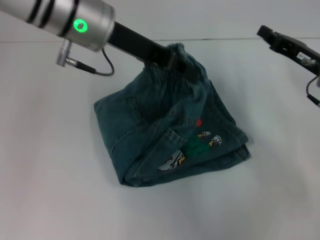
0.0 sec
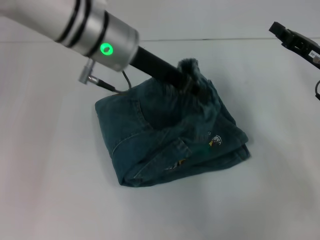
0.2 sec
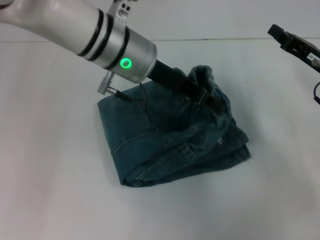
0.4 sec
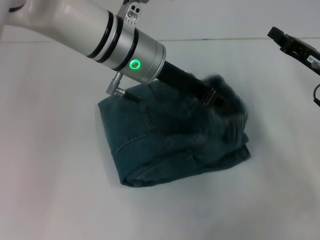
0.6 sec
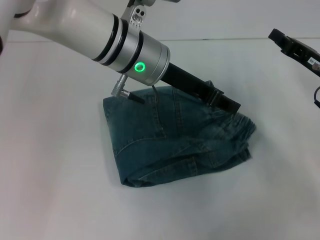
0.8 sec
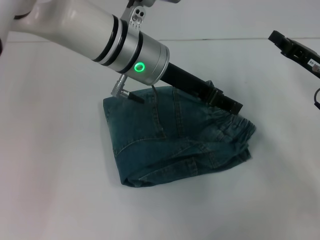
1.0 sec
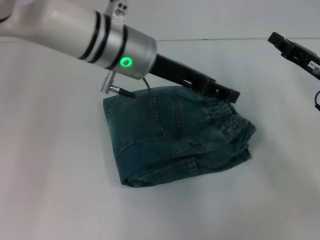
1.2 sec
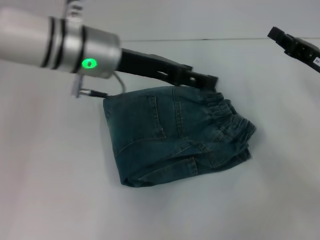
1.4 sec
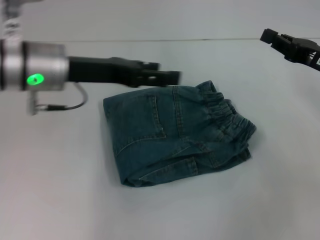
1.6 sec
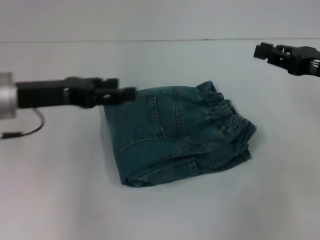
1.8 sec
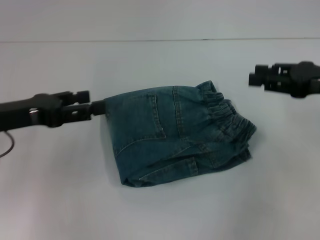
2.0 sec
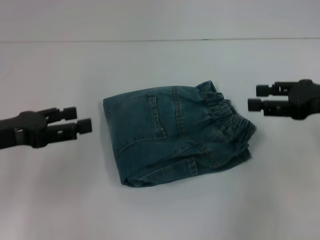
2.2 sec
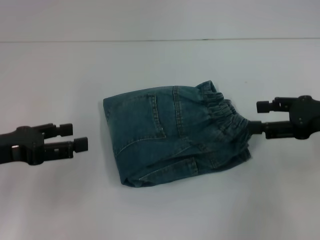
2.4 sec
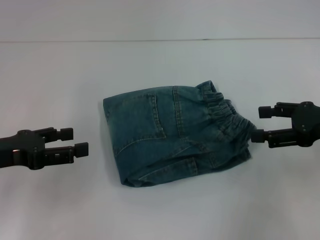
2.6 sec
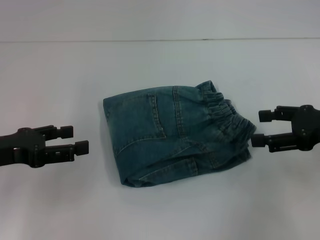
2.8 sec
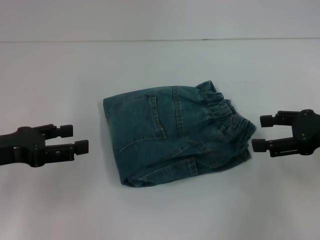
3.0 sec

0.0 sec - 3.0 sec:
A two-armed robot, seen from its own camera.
0.0 sec - 1.6 sec: The left gripper goes some 10 cm to the left and downward, and opens.
1.6 sec - 3.0 sec: The right gripper travels backward by some 5 cm, and opens up; the left gripper goes some 15 cm to the left, backward and downward.

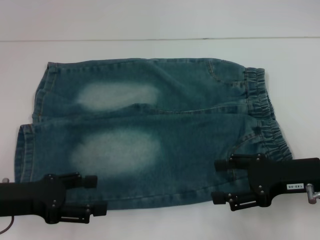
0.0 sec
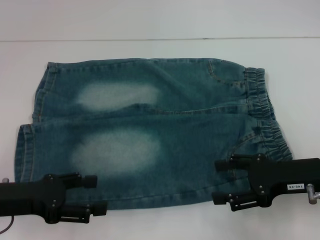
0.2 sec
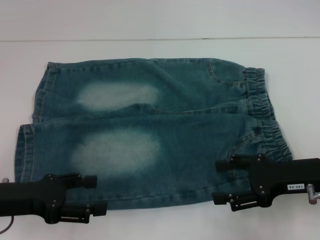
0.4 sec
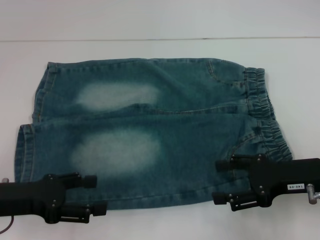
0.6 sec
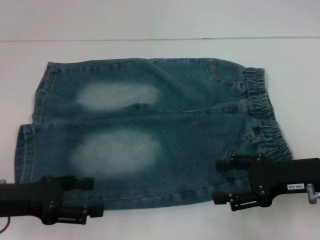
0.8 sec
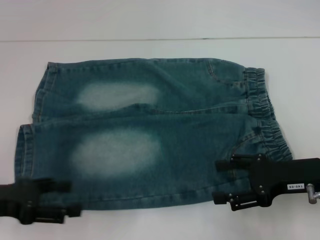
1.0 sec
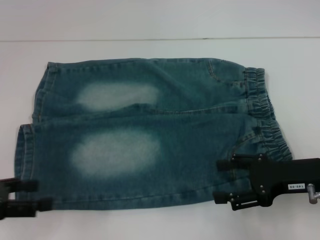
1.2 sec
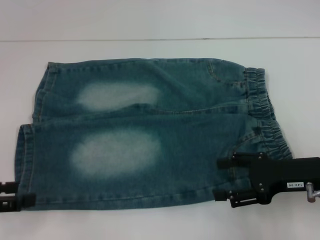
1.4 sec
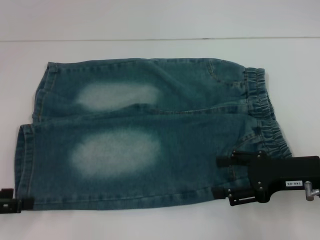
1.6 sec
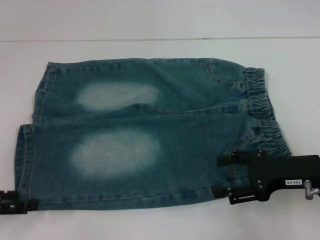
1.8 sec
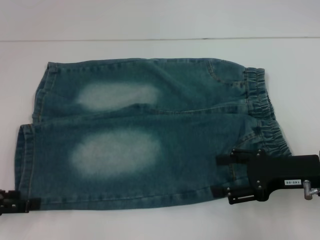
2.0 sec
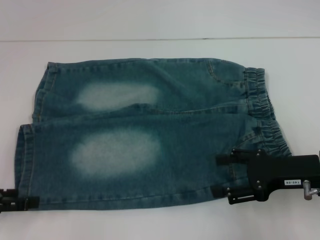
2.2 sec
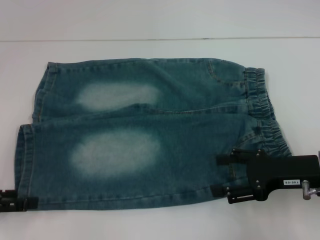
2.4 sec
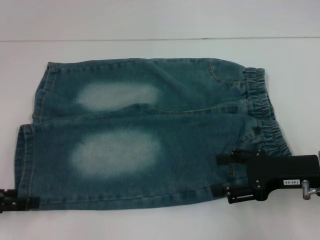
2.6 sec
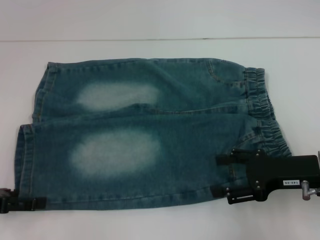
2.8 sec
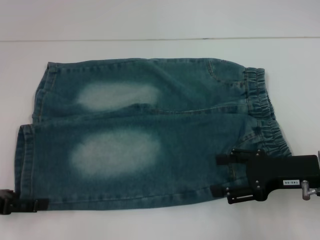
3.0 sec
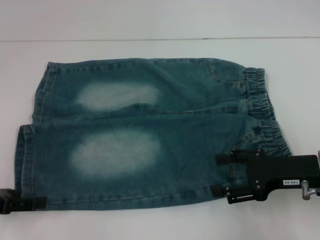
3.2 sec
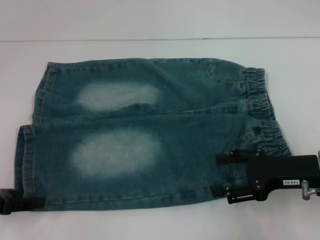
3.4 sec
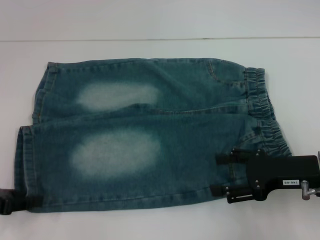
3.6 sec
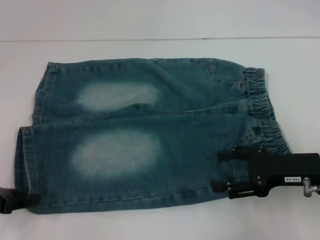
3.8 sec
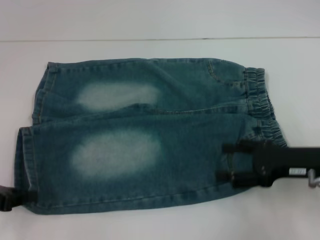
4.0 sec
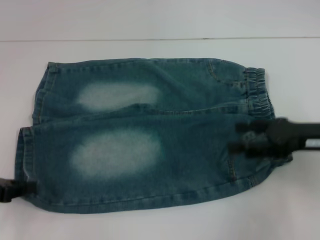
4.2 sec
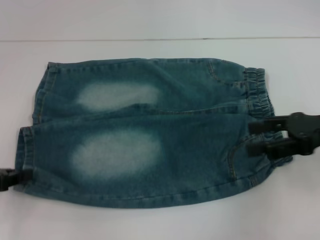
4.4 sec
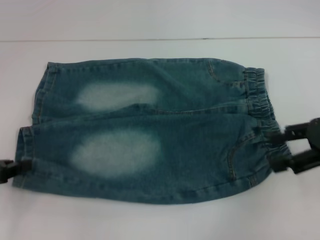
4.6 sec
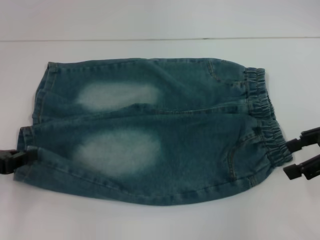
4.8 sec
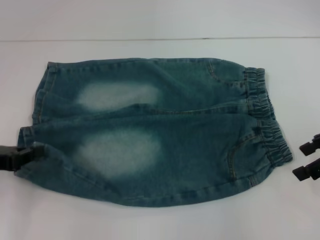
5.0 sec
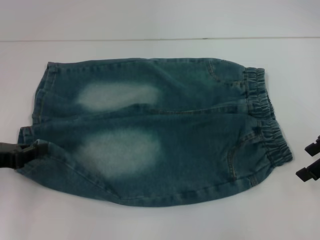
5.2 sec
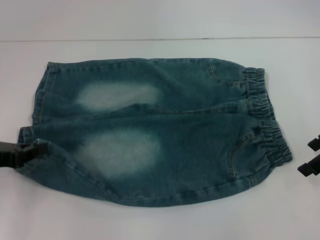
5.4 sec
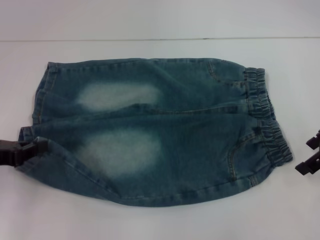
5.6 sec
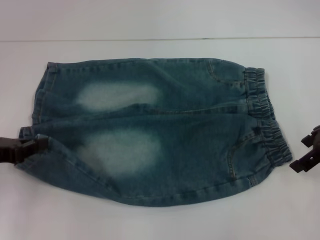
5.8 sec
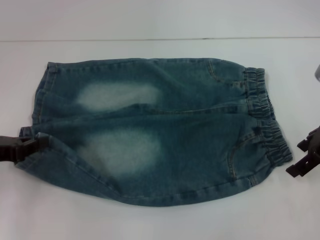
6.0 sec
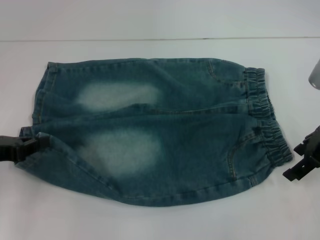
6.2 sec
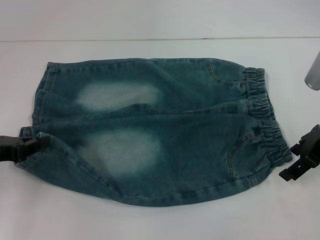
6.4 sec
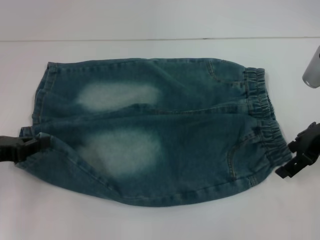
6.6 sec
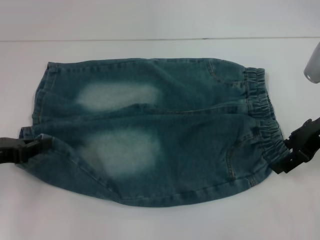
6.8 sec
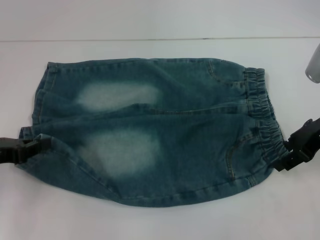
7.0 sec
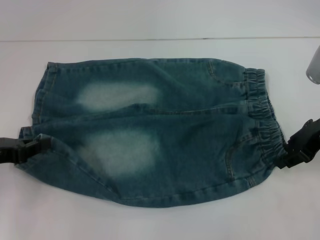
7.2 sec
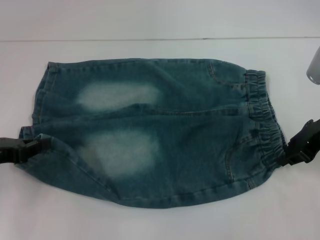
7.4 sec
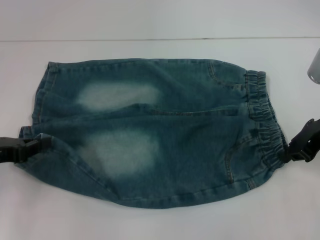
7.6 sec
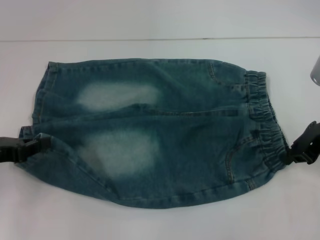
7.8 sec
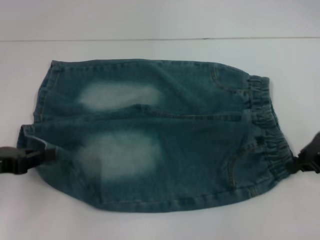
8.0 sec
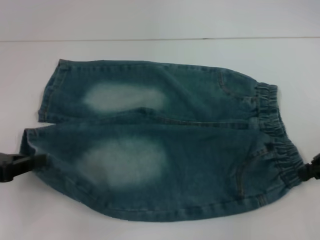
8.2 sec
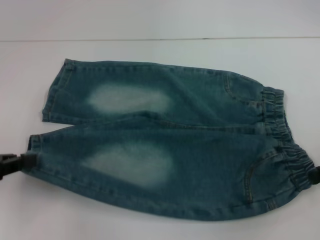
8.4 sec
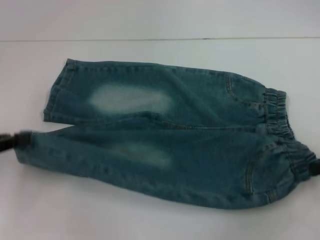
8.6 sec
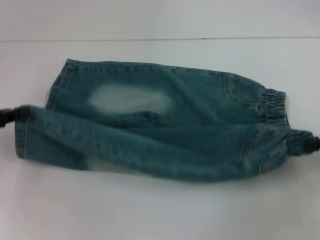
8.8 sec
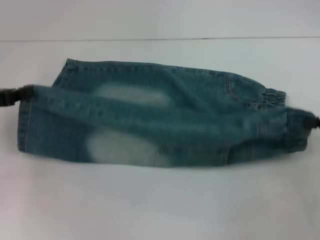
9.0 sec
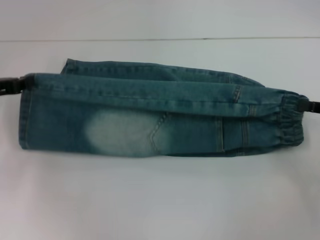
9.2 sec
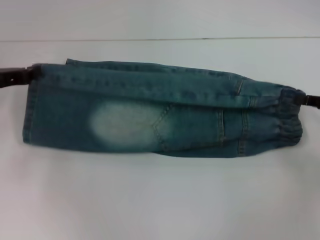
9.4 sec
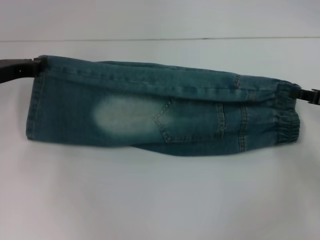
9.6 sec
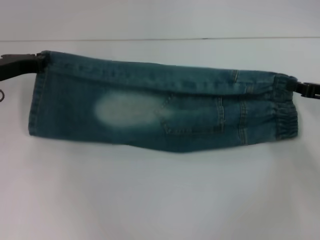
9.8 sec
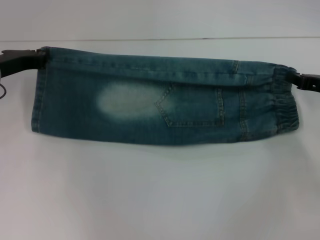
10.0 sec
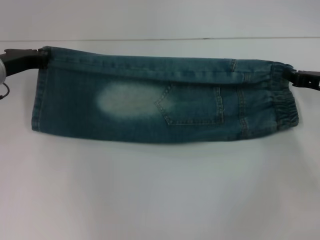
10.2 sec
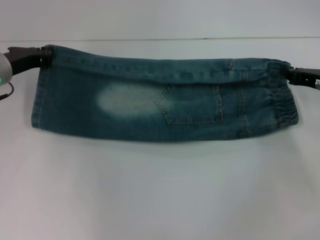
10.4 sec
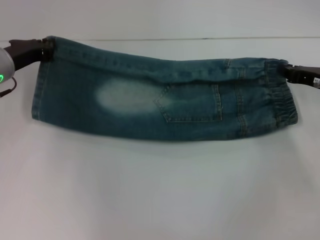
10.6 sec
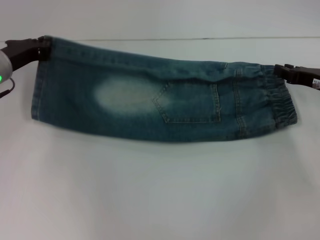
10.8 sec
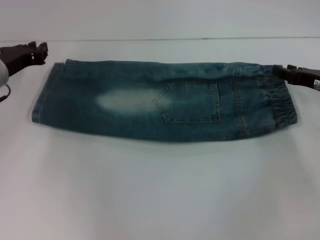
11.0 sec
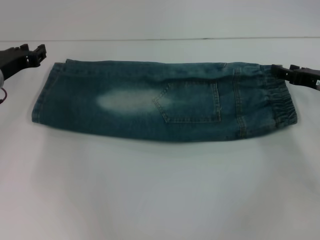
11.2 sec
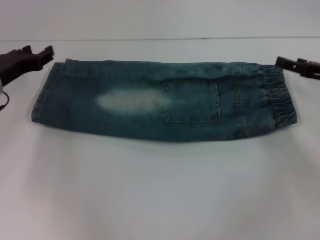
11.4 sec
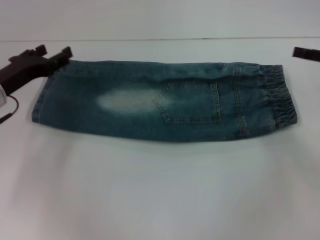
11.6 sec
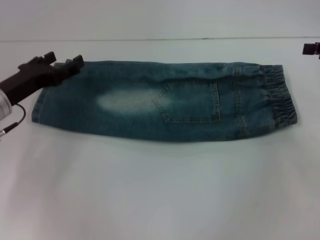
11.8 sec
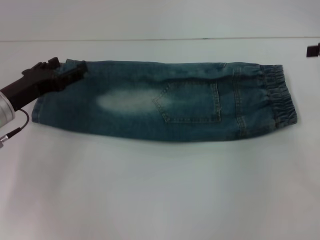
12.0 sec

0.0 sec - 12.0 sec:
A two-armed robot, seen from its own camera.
Step, 0.0 sec - 2.8 sec: Grab the lower left pant leg with your left hand.
Step, 3.0 sec - 7.0 sec: Hold the lower right waistband with your right hand.
Step, 7.2 sec - 11.0 sec: Fold upward with your right hand.
0.0 sec - 1.6 sec: The left gripper travels to the left by about 10 cm.
1.6 sec - 3.0 sec: There are only small adjustments of the grippers.
3.0 sec - 4.4 sec: The left gripper closes up. Meanwhile the right gripper heads upward, covering some 10 cm.
4.4 sec - 6.0 sec: The right gripper travels forward by about 5 cm.
6.0 sec - 7.6 sec: The right gripper closes.
7.6 sec - 9.0 sec: The left gripper is displaced forward by approximately 5 cm. Meanwhile the right gripper goes about 10 cm to the right and backward.
9.0 sec - 10.4 sec: The left gripper goes approximately 10 cm forward and to the right. Meanwhile the right gripper moves forward and to the left, roughly 10 cm.
10.4 sec - 12.0 sec: The left gripper travels backward by about 5 cm, and opens up. The right gripper is displaced upward and to the right by some 15 cm, and opens its fingers.

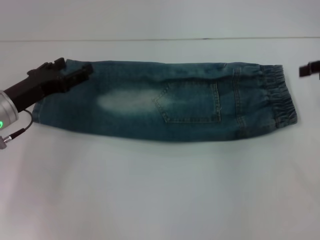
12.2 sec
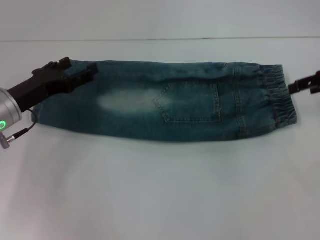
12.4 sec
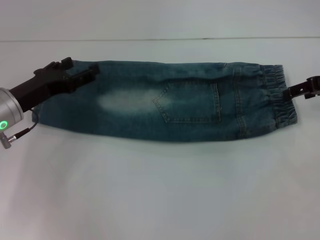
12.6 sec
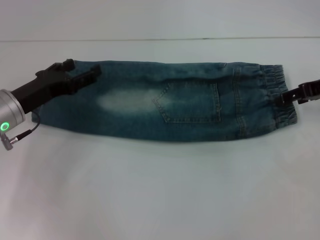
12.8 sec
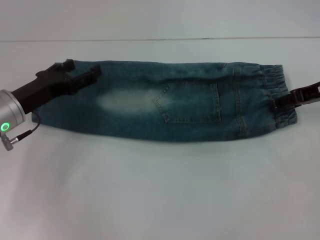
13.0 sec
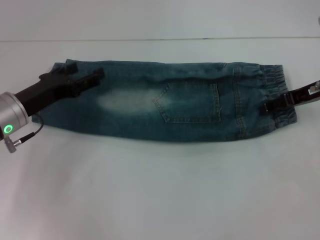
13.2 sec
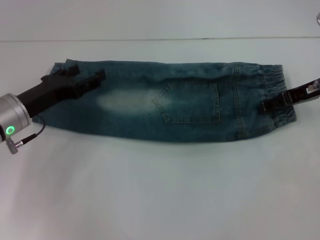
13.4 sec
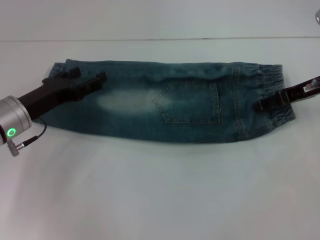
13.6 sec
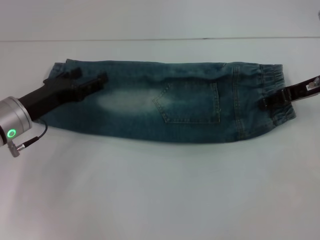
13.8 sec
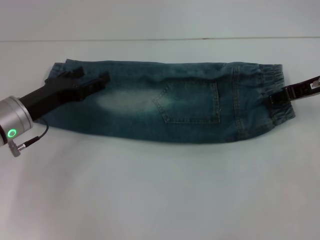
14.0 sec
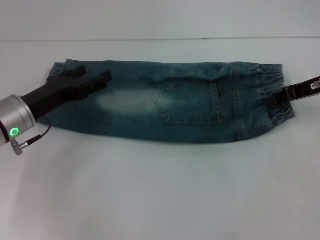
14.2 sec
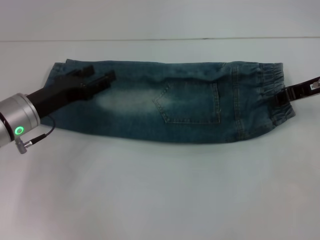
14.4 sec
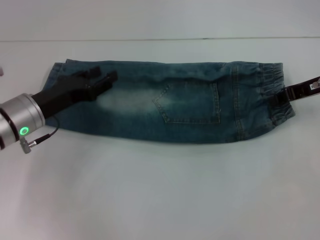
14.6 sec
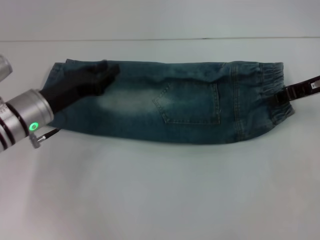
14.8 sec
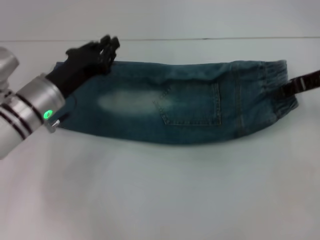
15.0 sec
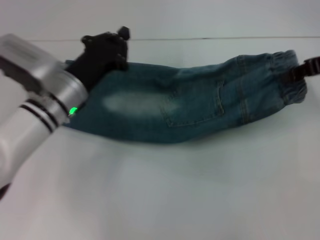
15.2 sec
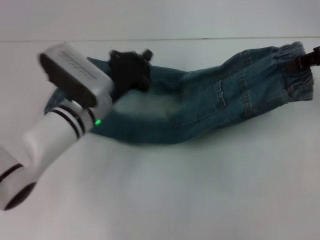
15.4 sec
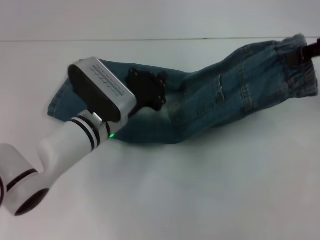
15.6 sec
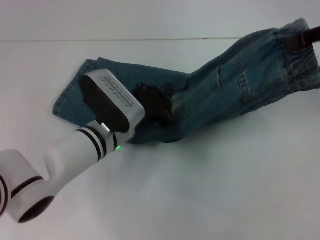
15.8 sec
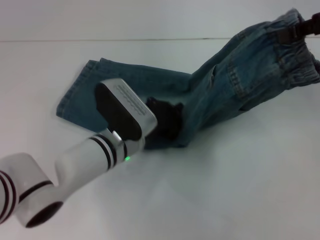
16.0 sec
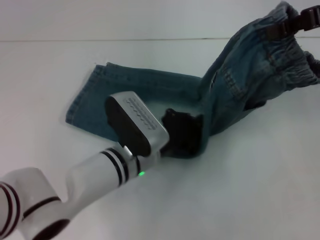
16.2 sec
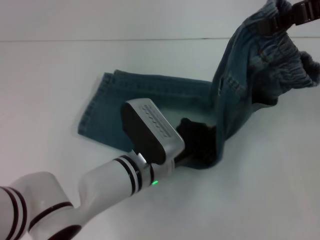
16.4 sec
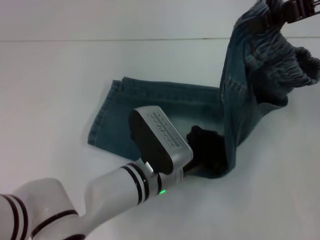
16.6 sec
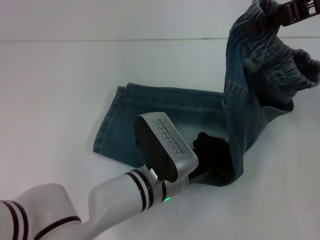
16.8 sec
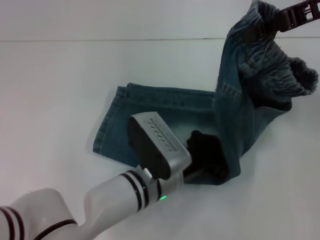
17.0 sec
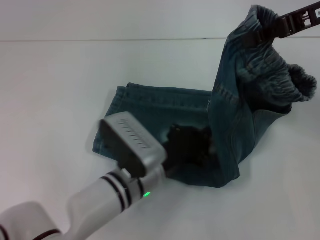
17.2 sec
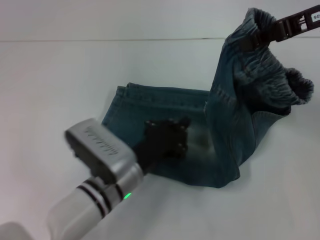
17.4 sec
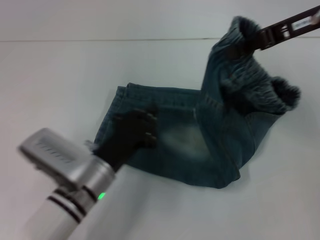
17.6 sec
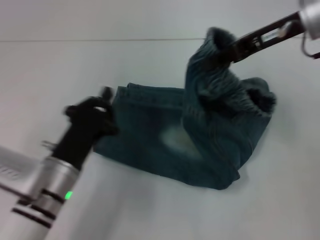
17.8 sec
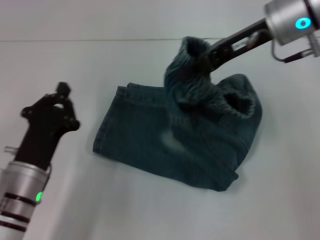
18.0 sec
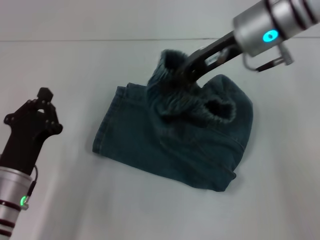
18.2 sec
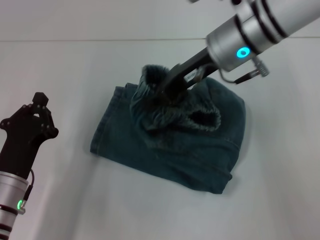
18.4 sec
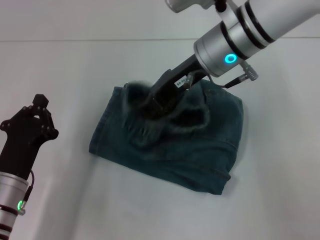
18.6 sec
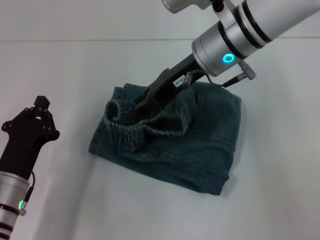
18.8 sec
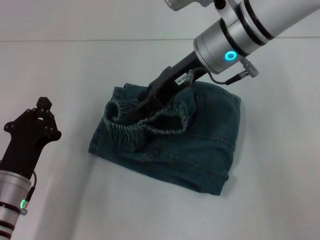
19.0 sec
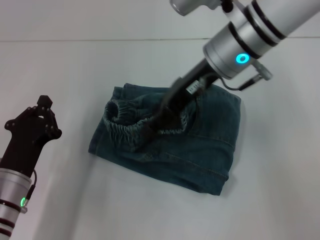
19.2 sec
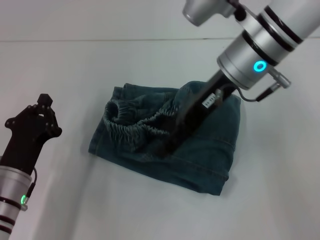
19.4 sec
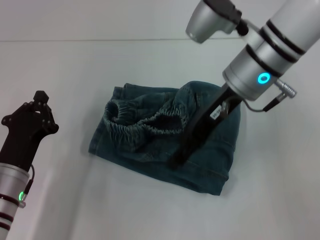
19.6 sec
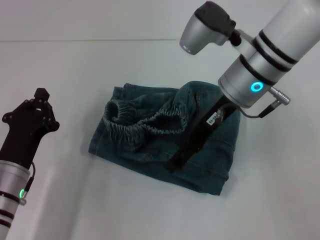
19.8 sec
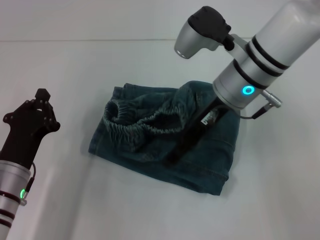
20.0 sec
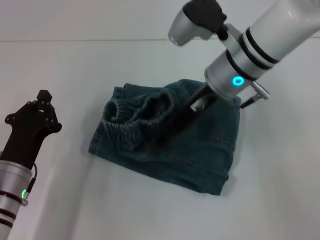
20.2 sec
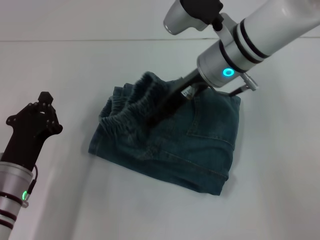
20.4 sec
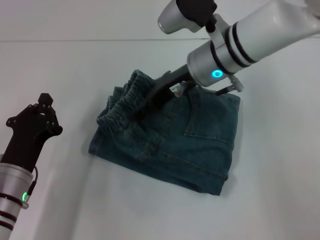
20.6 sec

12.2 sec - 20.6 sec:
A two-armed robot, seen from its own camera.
Step, 12.2 sec - 14.0 sec: Grab the waistband with your right hand.
Step, 14.4 sec - 17.2 sec: Press the middle of the pants with your left hand.
Step, 17.4 sec - 19.0 sec: Fold to the left with your right hand.
12.2 sec - 13.6 sec: The right gripper goes some 10 cm to the left.
13.6 sec - 15.0 sec: The left gripper is displaced to the right by some 5 cm, and closes its fingers. Meanwhile the right gripper closes its fingers.
15.0 sec - 16.4 sec: The right gripper goes some 10 cm upward. Meanwhile the left gripper is displaced to the right and backward by about 15 cm, and closes up.
16.4 sec - 17.8 sec: The left gripper shifts roughly 10 cm to the left; the right gripper shifts about 10 cm to the left and downward.
17.8 sec - 19.2 sec: The left gripper travels to the left by some 5 cm; the right gripper heads to the left, covering about 10 cm, and opens.
19.2 sec - 20.6 sec: The right gripper opens.
